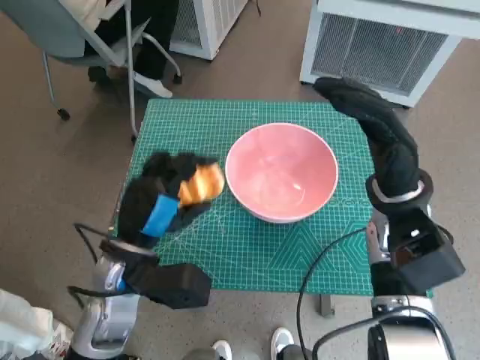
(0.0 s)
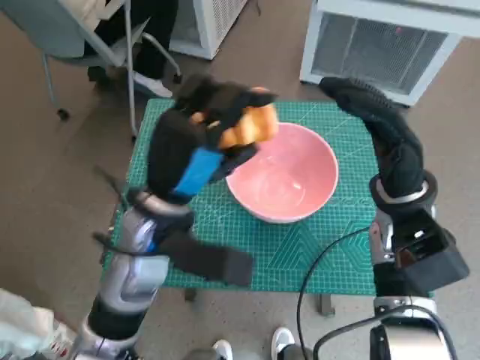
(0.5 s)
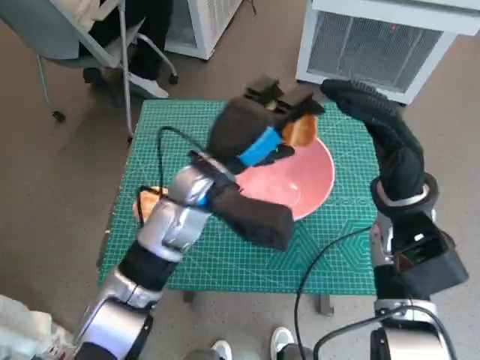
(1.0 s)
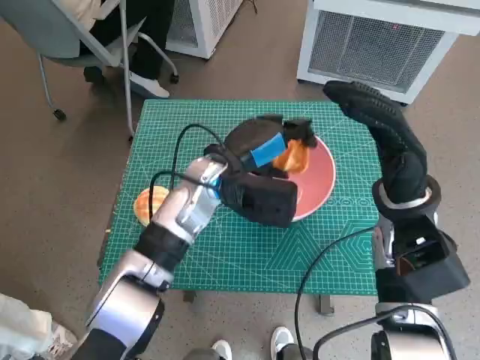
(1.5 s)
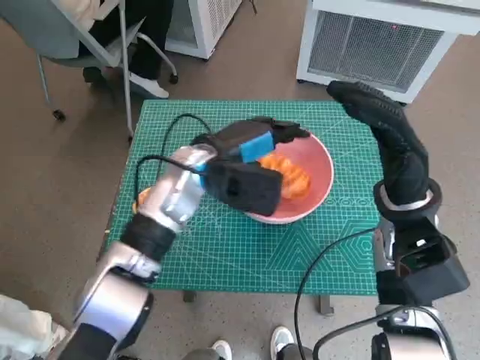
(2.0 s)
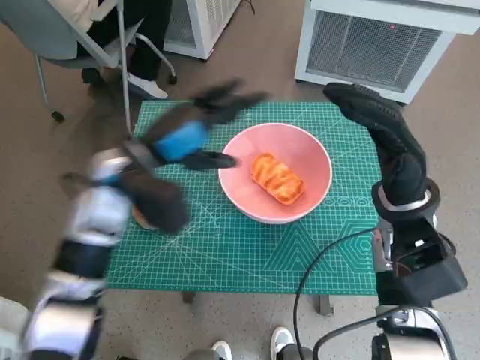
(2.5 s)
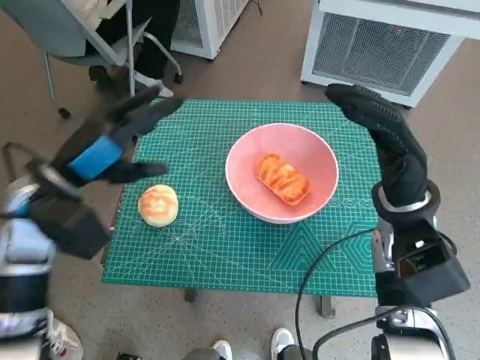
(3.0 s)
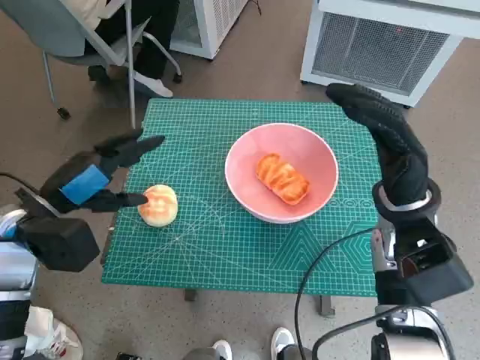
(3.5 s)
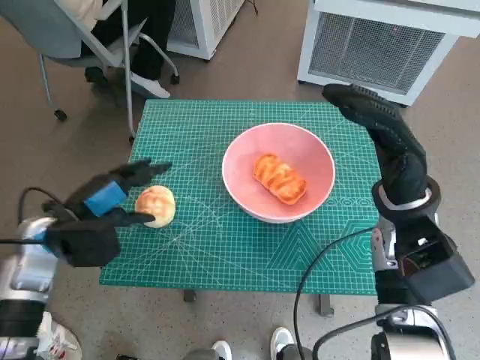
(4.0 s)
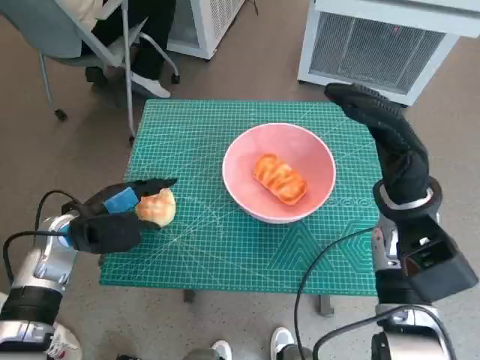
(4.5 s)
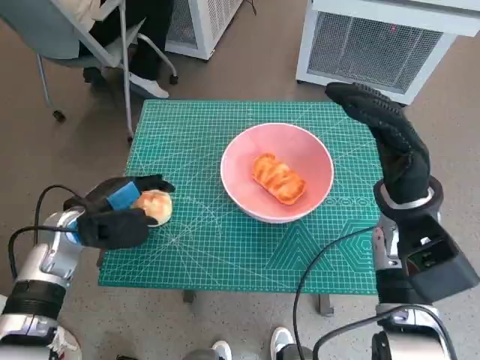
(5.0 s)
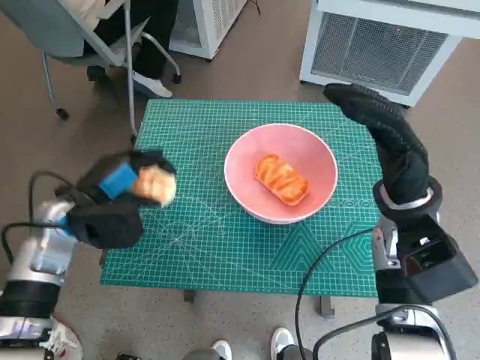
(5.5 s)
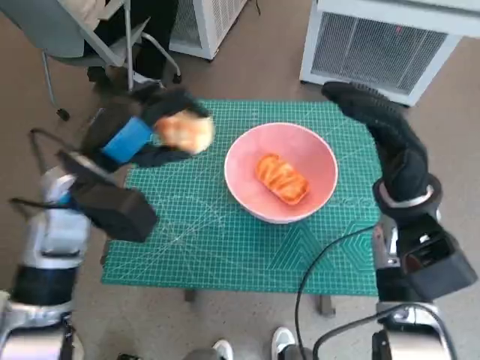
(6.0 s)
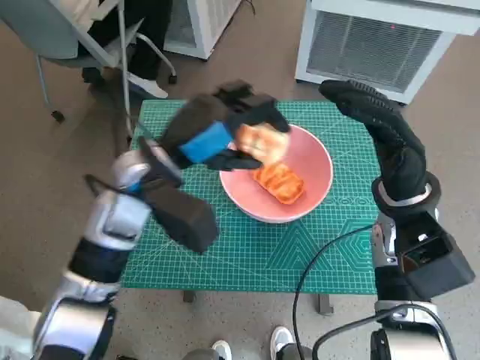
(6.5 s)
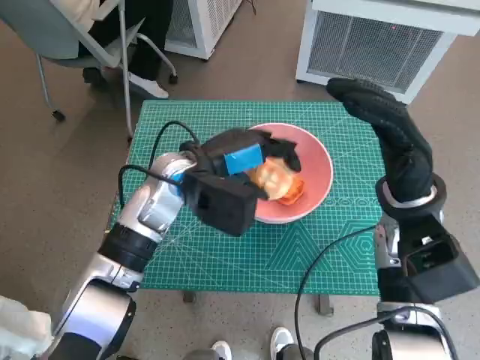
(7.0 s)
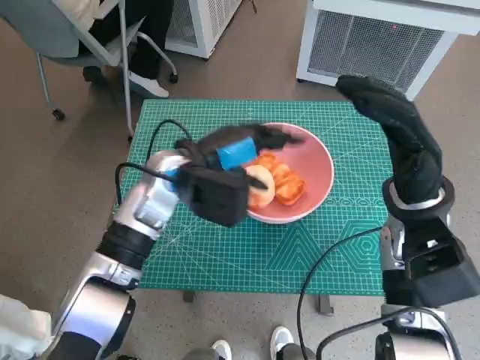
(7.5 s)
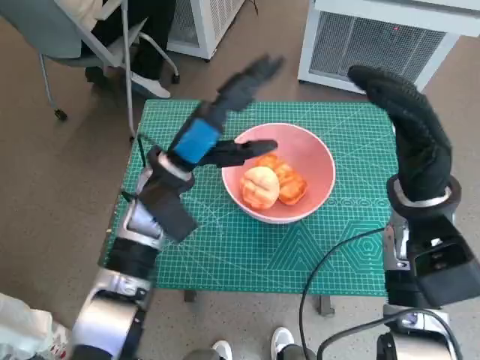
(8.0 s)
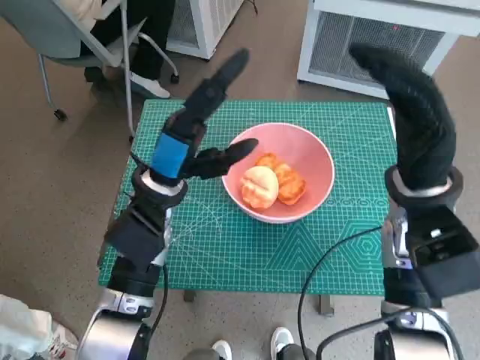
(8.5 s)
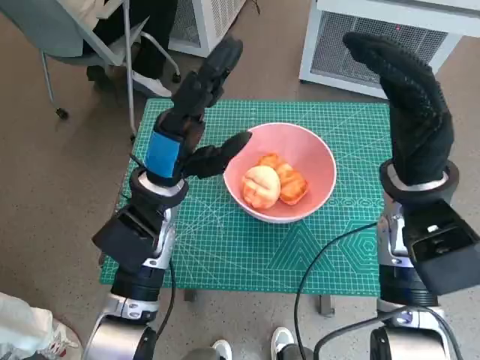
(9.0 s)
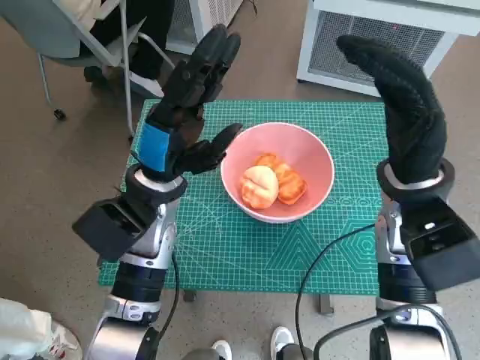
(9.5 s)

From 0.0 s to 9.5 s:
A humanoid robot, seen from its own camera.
Task of the whole recording: Push the bowl to the center of the table and put the bread into the bowl.
Step, from 0.0 s to 2.0 s: Place the long bread in pink bowl with left hand.
Step, from 2.5 s to 5.0 s: Grasp the round bread with left hand.
Step, from 5.5 s to 7.5 s: Place the round bread in pink bowl with left hand.
From 0.0 s to 2.0 s: The left hand goes some 15 cm forward and to the right.
From 2.0 s to 4.0 s: The left hand travels to the left and backward by approximately 20 cm.
From 4.0 s to 5.5 s: The hands move only a little.
From 5.5 s to 7.5 s: The left hand shifts approximately 15 cm to the right.
